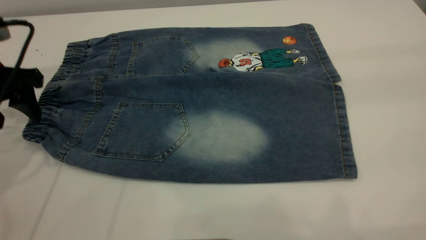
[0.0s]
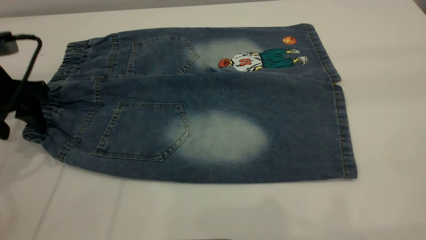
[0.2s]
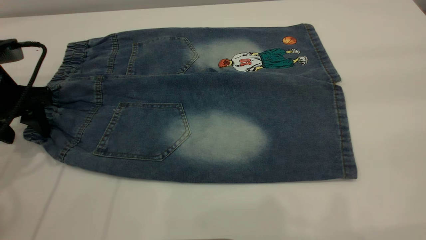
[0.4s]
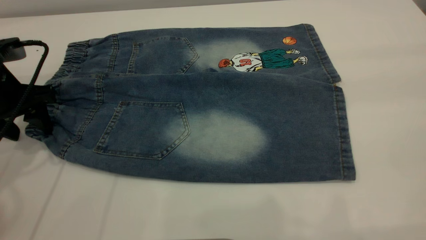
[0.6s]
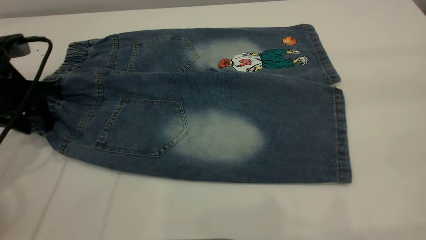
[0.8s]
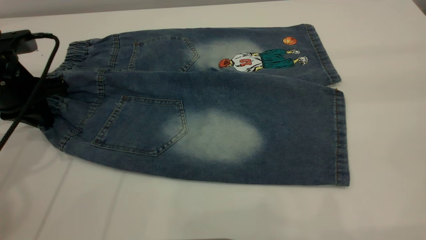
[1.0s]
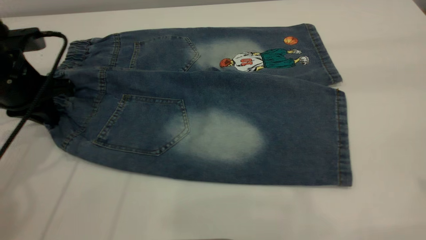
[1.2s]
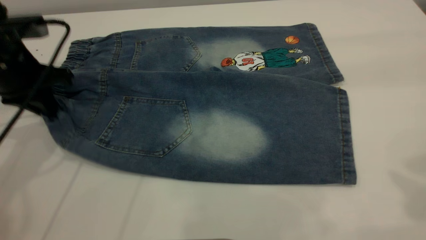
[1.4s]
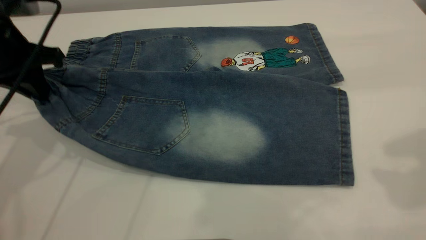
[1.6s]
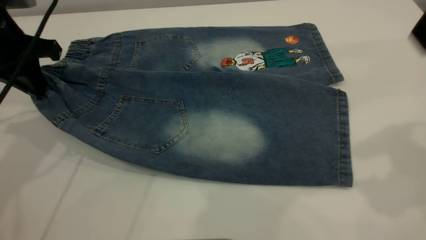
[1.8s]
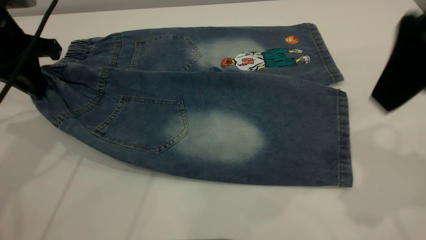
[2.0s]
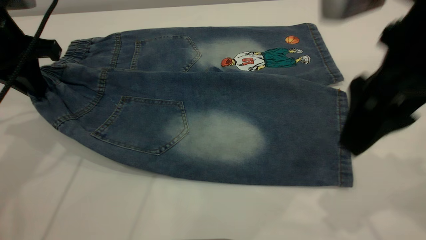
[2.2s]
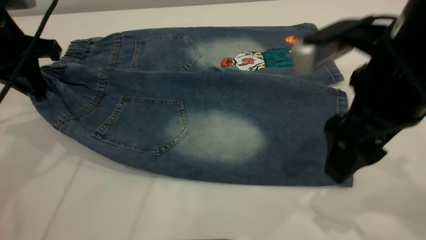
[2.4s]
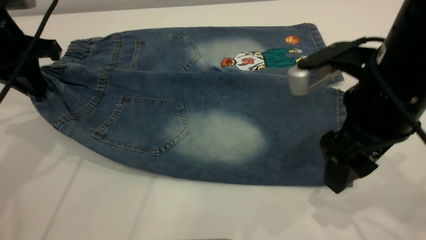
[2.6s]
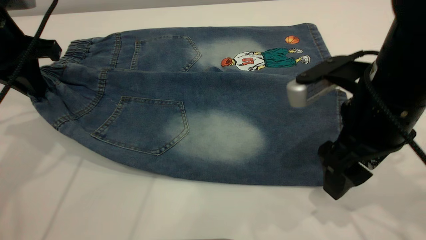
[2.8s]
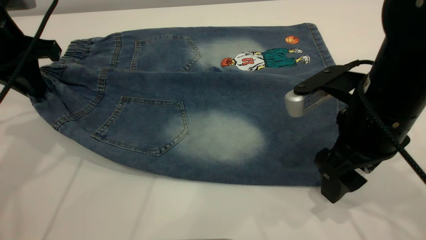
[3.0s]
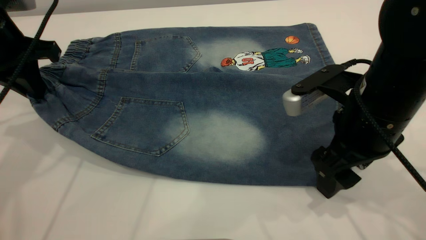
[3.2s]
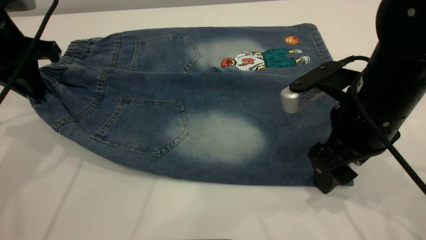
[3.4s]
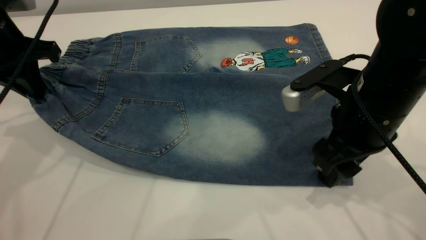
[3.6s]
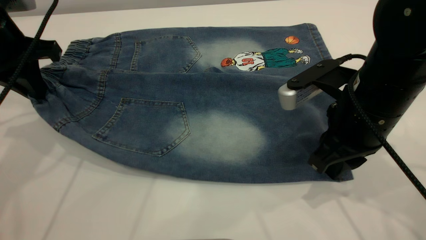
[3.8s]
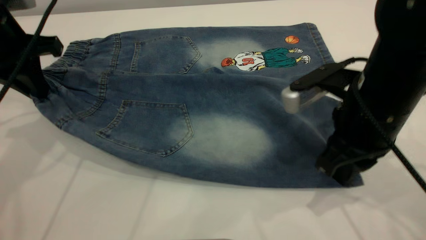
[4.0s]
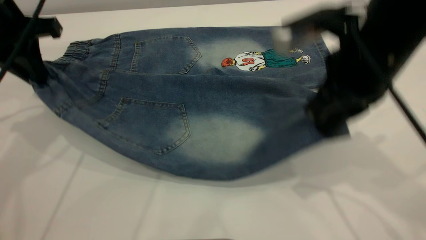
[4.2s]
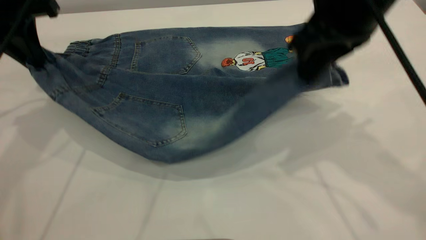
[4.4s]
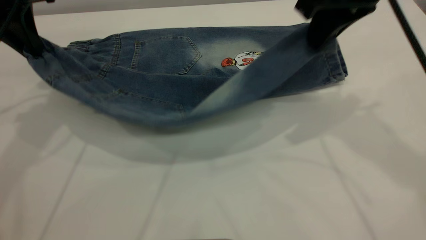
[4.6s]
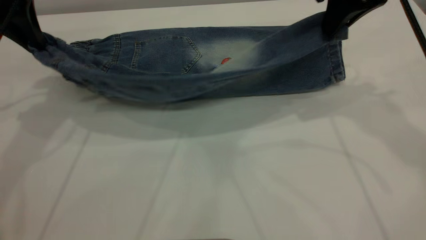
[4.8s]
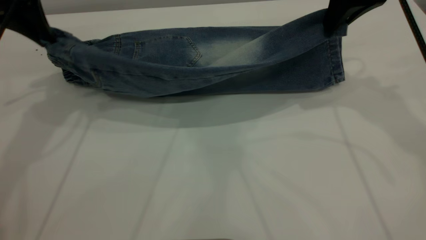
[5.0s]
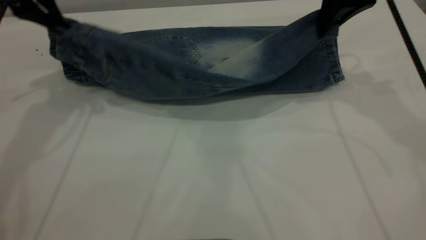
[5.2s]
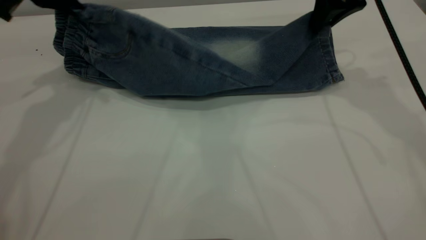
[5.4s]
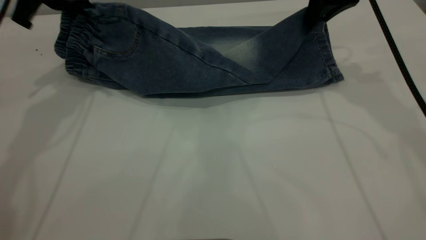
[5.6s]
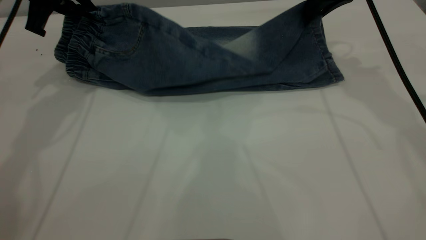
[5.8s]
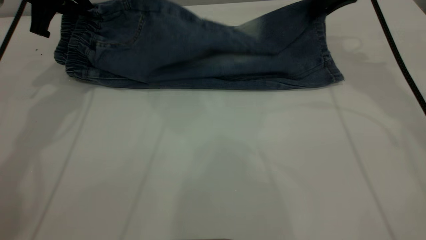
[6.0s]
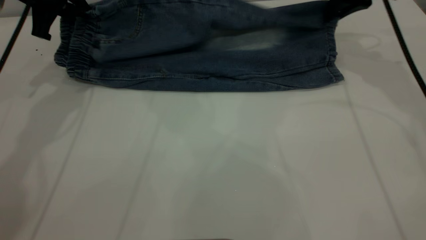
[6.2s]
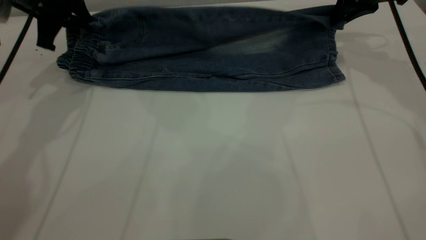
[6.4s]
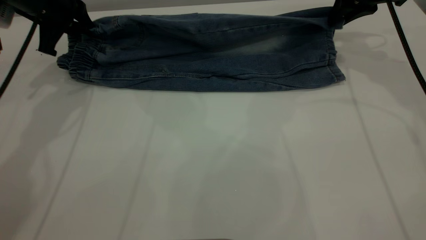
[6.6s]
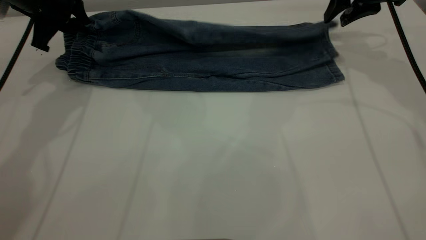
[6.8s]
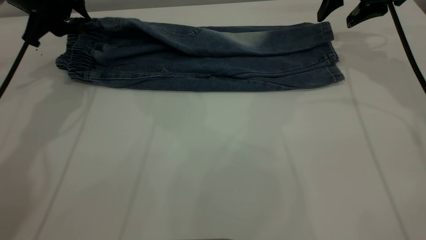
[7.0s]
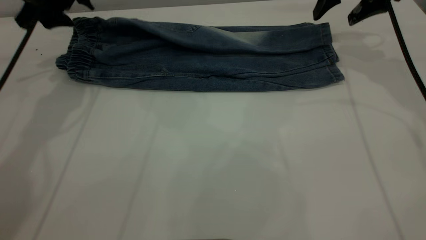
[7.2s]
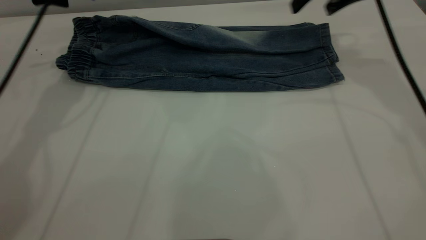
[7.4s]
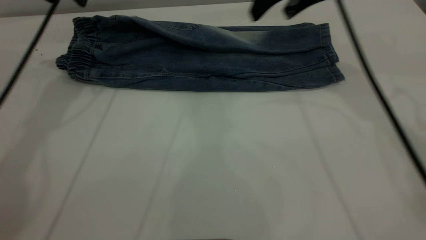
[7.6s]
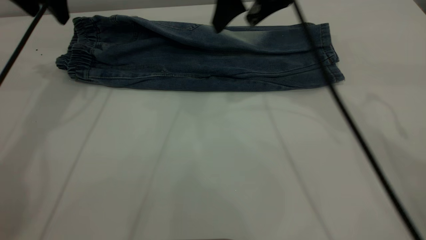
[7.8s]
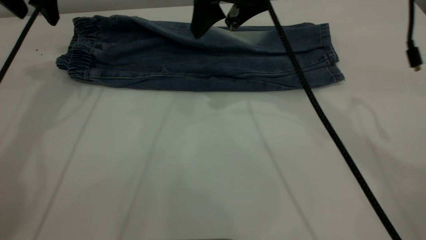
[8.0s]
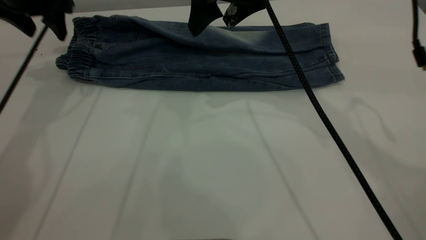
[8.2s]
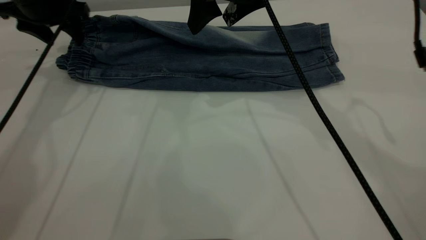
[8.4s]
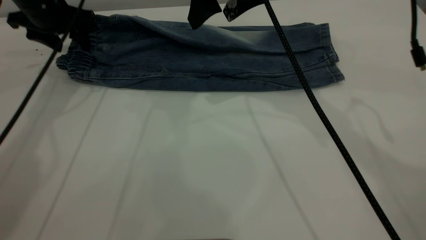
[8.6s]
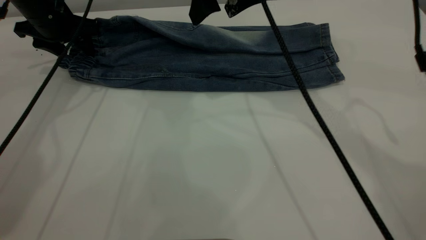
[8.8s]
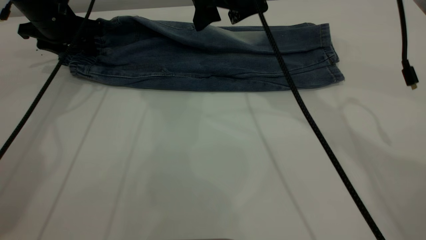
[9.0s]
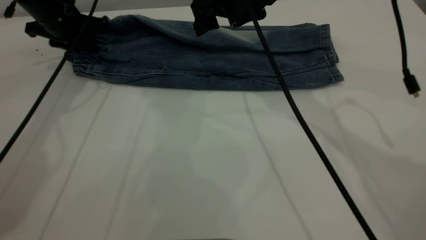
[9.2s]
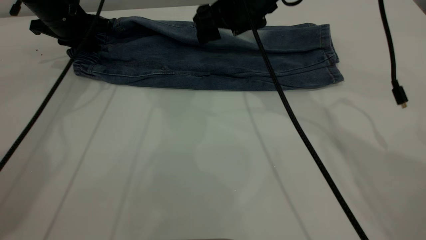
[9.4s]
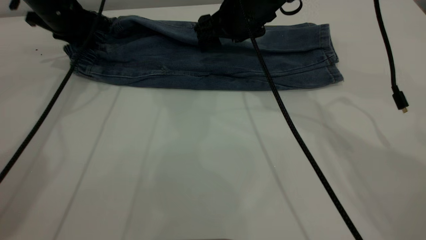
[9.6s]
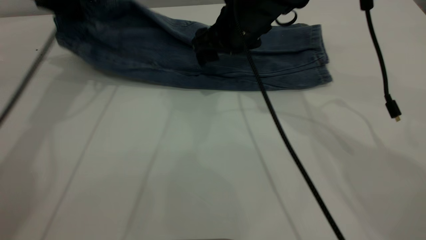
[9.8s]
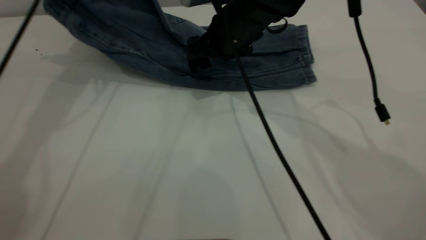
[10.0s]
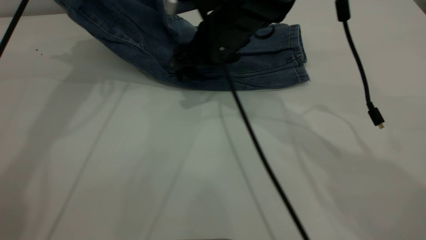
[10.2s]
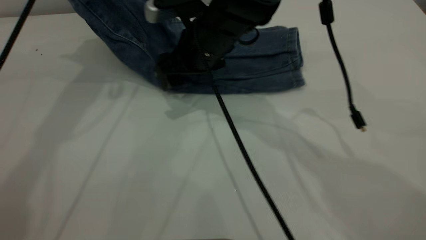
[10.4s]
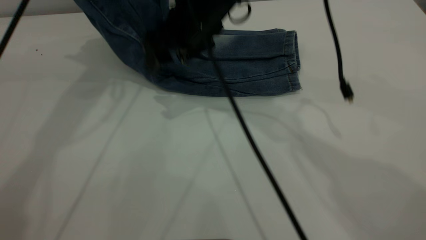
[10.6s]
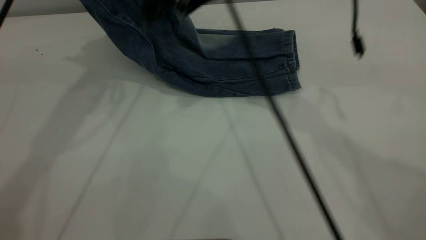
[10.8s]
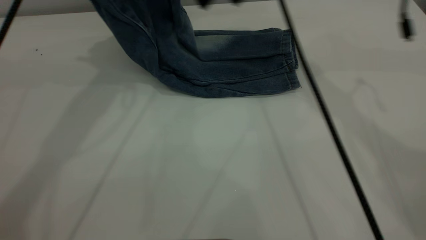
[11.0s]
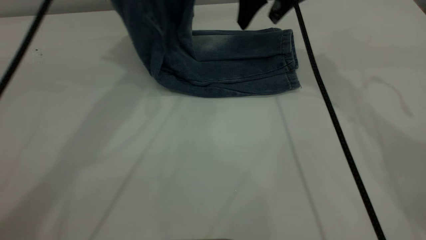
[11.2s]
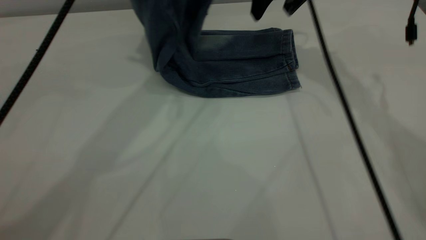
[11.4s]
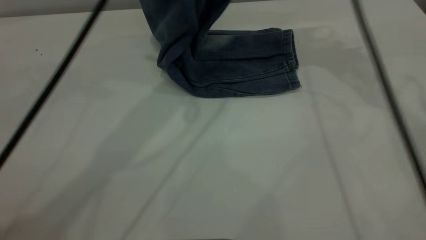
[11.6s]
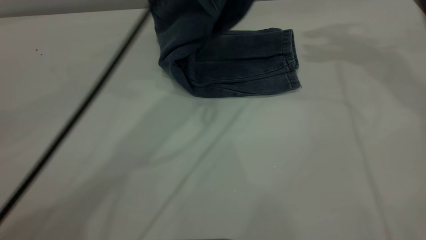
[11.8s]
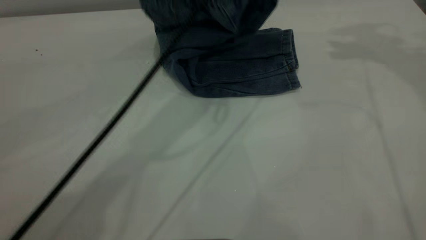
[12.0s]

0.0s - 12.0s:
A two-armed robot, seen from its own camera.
Step, 0.0s - 7.4s: Fold the bottom of the pants upward.
0.0s - 1.6s: The left gripper moves some 5 cm, and closes its fingers, while the right gripper is displaced forward by about 10 cm.
1.6s - 3.0s: The right gripper is displaced downward and to the left by approximately 25 cm.
3.0s - 4.4s: The right gripper is displaced upward and forward by about 15 cm, and closes its fingers; the left gripper changes place by some 5 cm.
4.4s - 6.0s: The left gripper goes approximately 5 cm forward. The right gripper shifts roughly 20 cm forward and to the right.
6.0s - 7.6s: The right gripper is displaced to the left by approximately 10 cm, and opens, while the left gripper opens.
7.6s - 9.0s: The right gripper travels to the left by approximately 5 cm. The left gripper moves downward, roughly 10 cm.
9.0s - 10.4s: The left gripper is displaced upward by roughly 20 cm, and closes its fingers, while the right gripper goes about 10 cm to the left and downward.
10.4s - 12.0s: The left gripper travels to the right by roughly 20 cm. The right gripper goes approximately 35 cm to the right and upward.

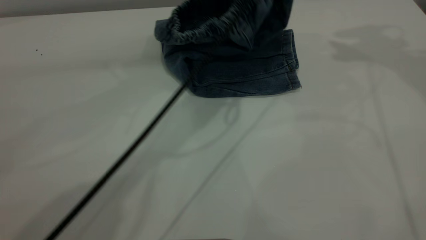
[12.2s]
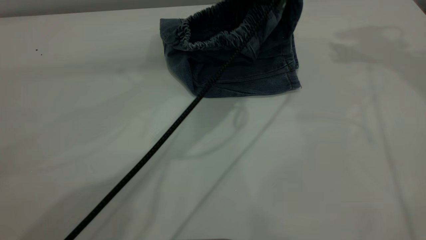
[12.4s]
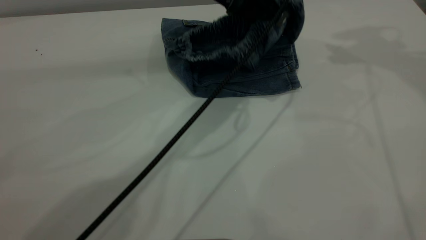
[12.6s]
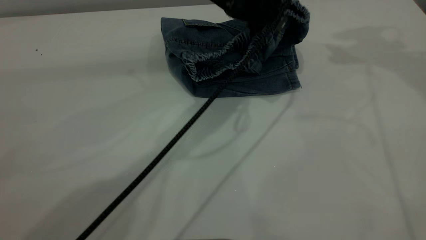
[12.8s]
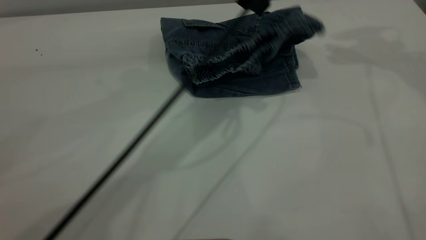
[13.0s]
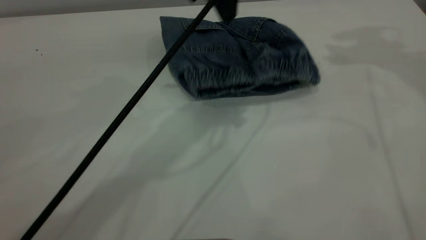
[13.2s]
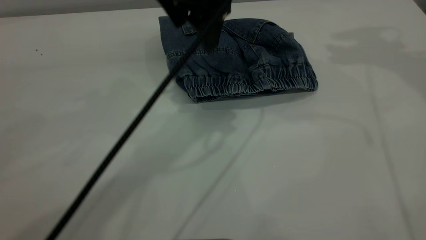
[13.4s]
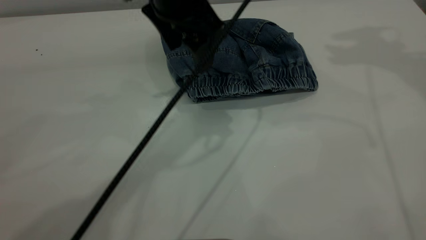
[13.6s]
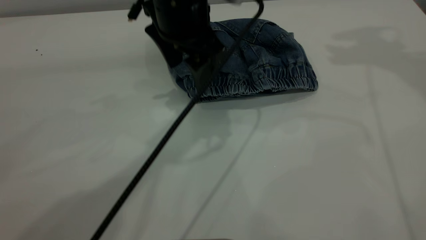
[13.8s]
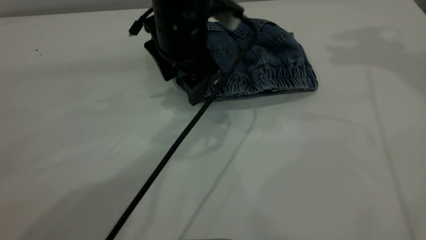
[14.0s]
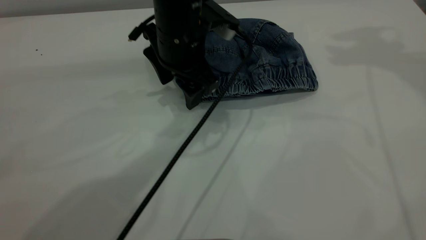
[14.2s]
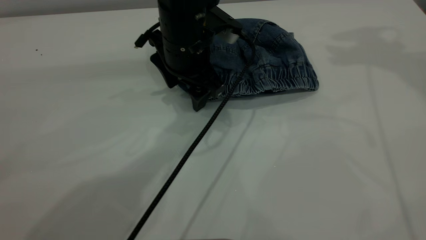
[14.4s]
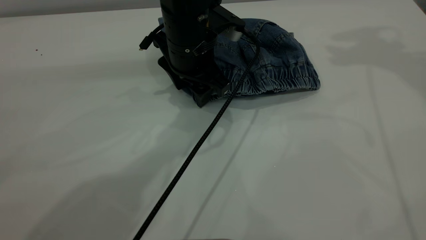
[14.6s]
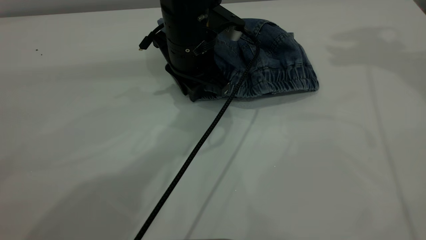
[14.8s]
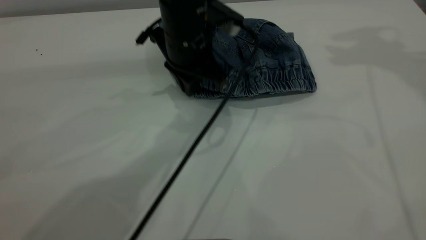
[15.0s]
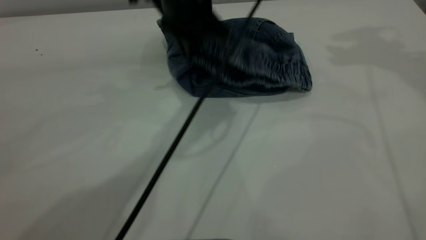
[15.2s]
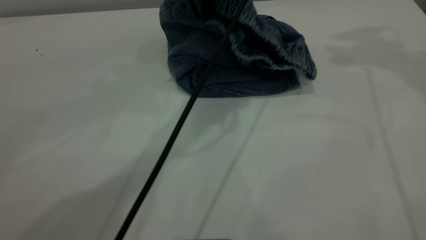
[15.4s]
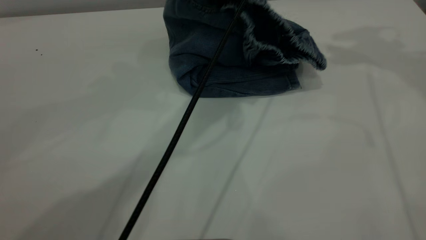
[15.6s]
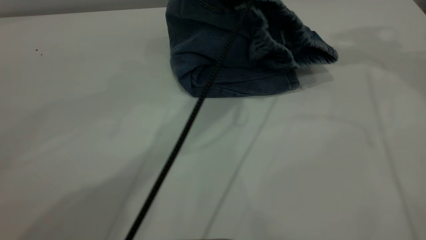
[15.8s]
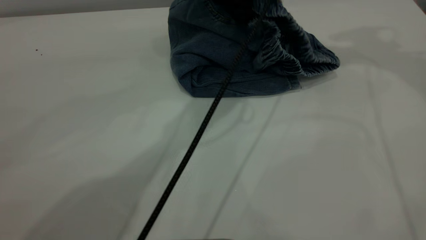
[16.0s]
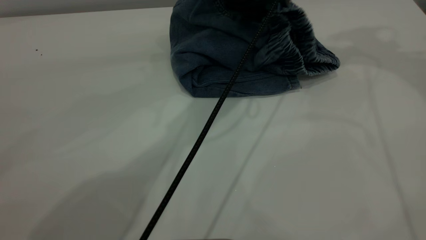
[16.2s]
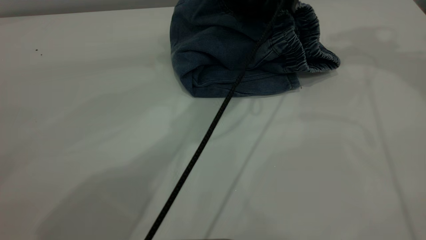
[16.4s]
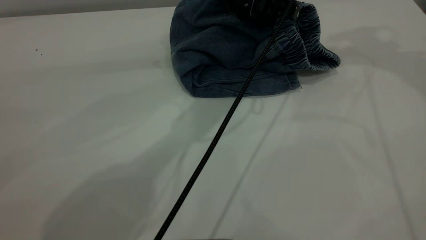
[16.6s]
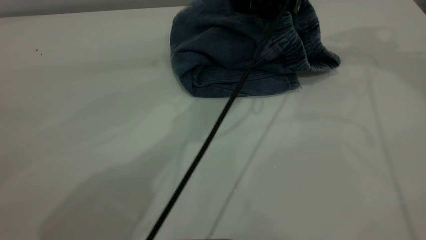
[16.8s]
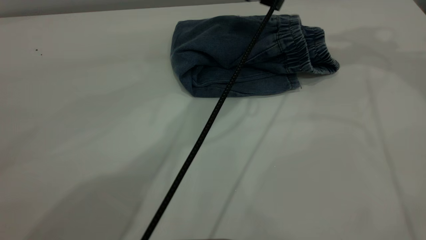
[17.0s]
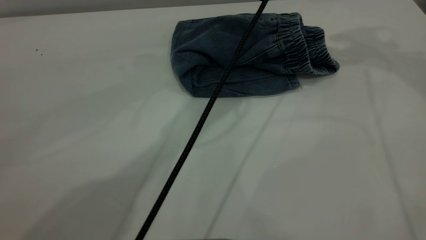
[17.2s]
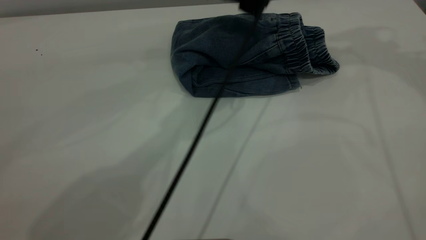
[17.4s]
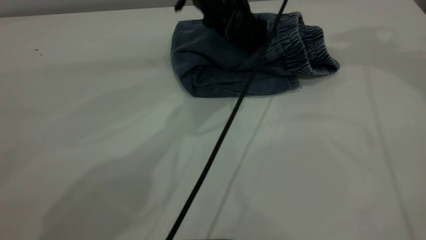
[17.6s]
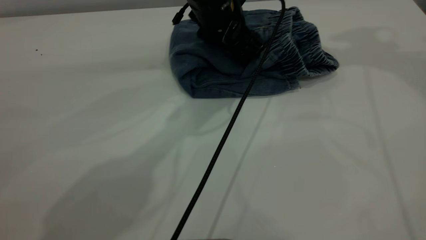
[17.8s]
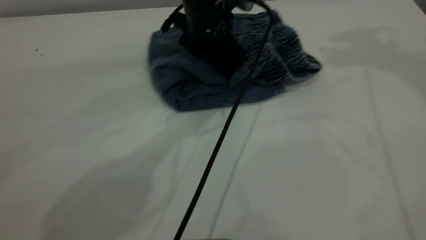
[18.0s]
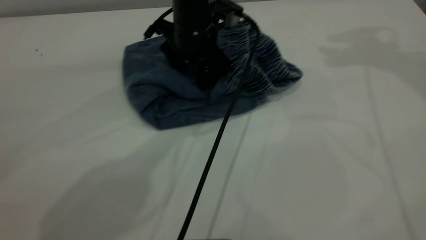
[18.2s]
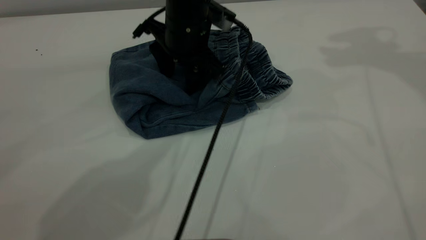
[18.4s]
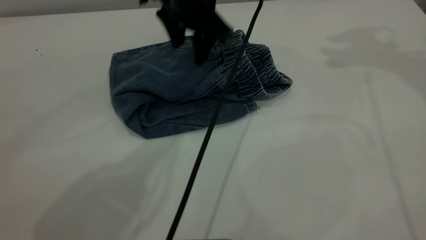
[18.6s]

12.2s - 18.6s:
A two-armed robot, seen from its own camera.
12.2s - 13.8s: The left gripper goes about 5 cm backward, and opens its fingers.
13.8s - 15.4s: The left gripper heads upward, covering about 5 cm, and closes its fingers.
15.4s - 17.0s: The left gripper goes downward and returns, some 10 cm each way, and opens its fingers.
17.0s - 18.6s: The left gripper reaches some 10 cm downward, then returns.
